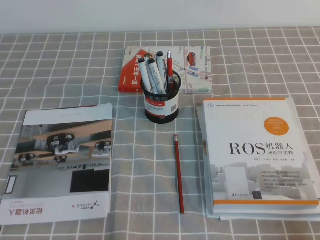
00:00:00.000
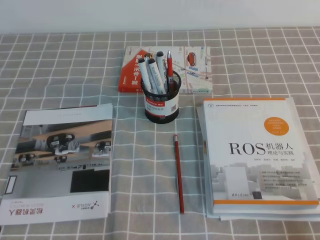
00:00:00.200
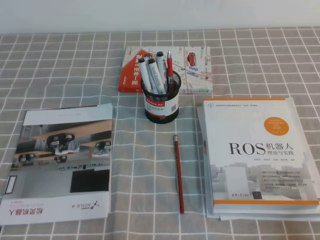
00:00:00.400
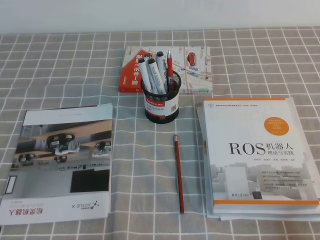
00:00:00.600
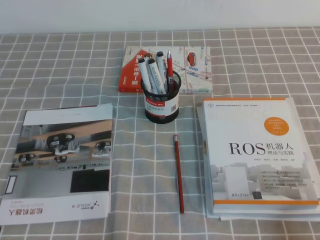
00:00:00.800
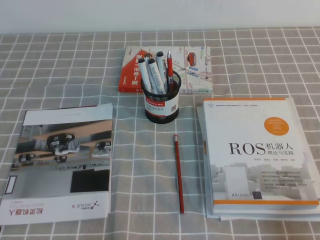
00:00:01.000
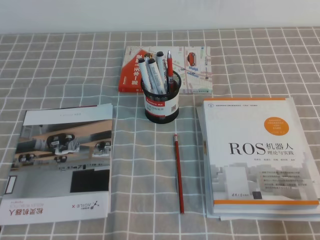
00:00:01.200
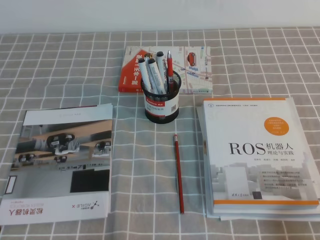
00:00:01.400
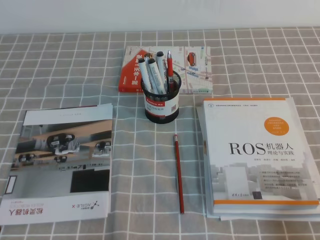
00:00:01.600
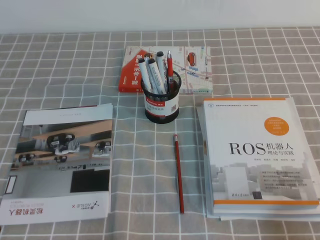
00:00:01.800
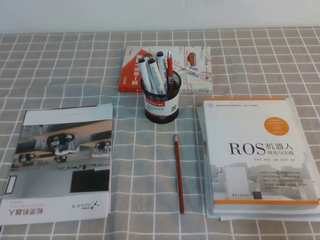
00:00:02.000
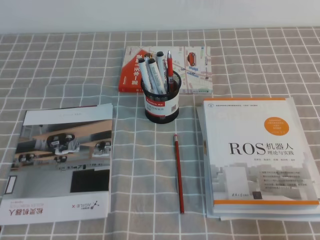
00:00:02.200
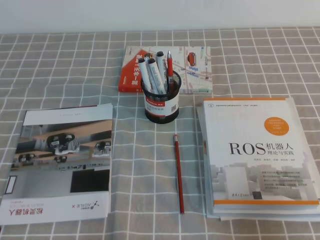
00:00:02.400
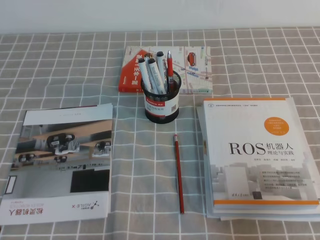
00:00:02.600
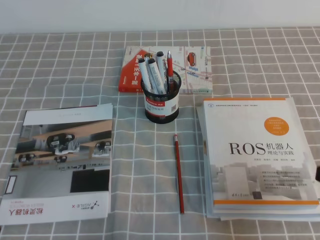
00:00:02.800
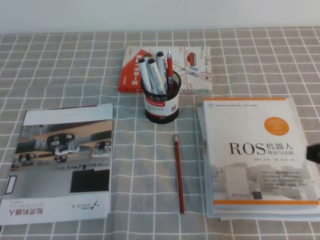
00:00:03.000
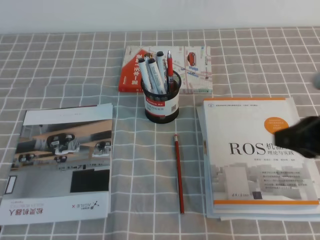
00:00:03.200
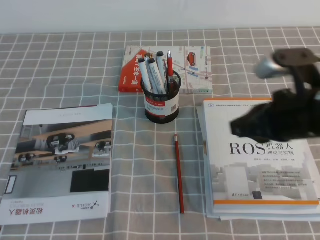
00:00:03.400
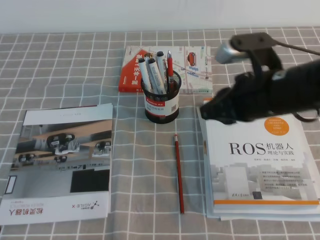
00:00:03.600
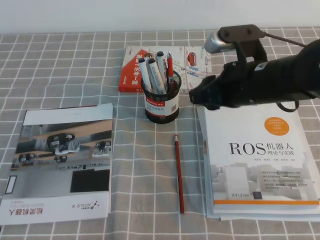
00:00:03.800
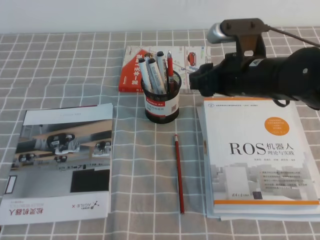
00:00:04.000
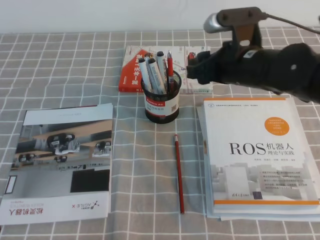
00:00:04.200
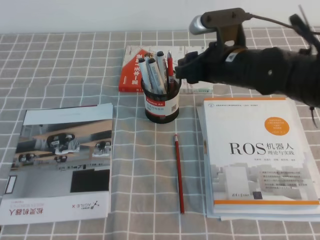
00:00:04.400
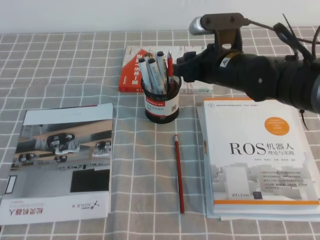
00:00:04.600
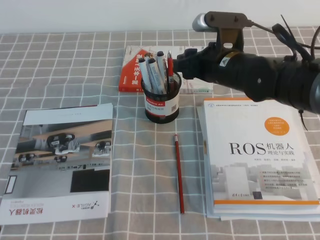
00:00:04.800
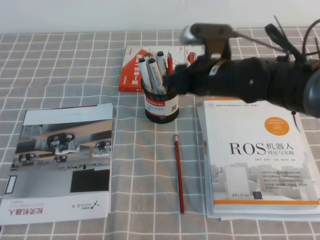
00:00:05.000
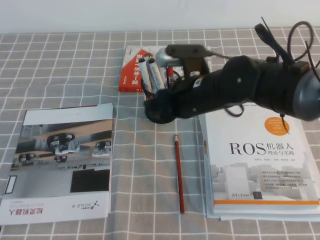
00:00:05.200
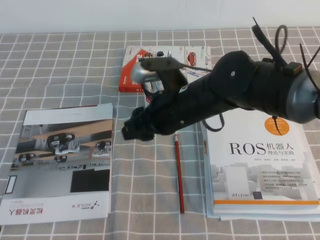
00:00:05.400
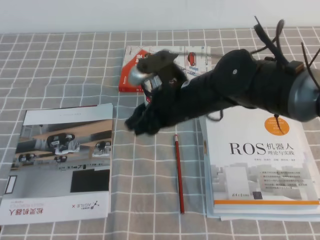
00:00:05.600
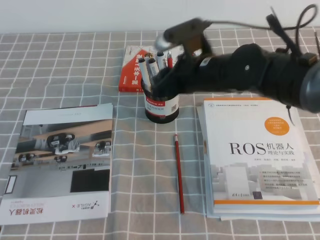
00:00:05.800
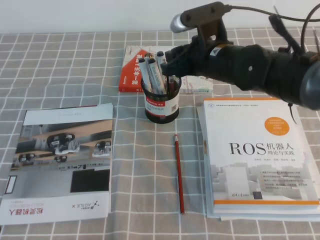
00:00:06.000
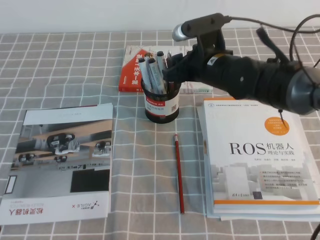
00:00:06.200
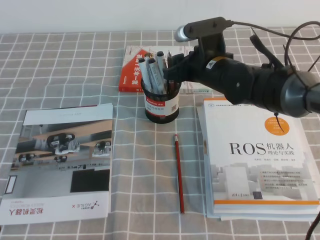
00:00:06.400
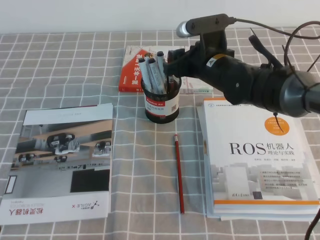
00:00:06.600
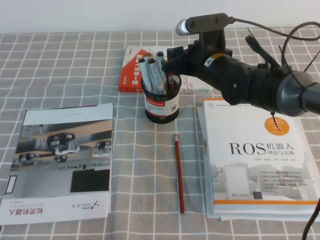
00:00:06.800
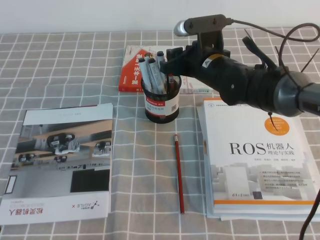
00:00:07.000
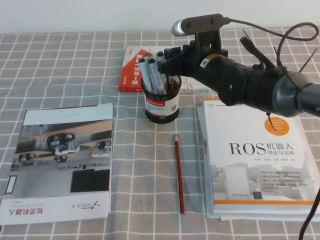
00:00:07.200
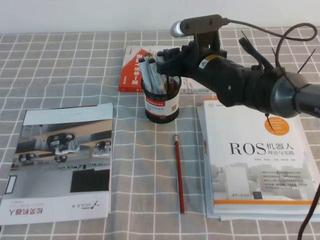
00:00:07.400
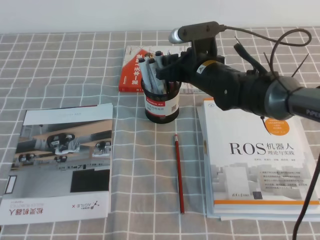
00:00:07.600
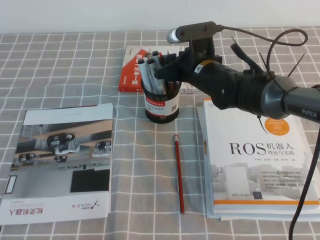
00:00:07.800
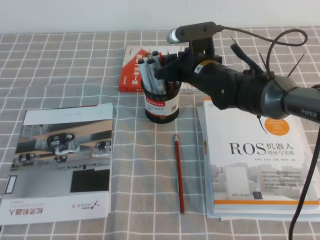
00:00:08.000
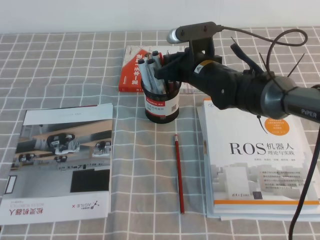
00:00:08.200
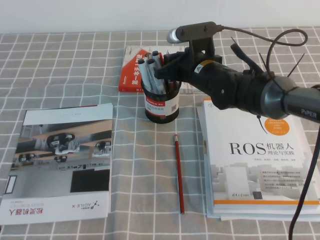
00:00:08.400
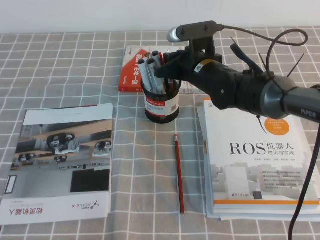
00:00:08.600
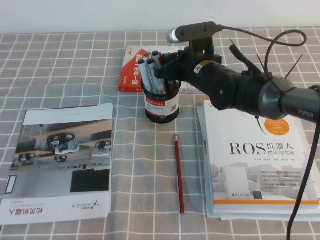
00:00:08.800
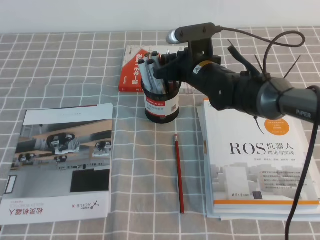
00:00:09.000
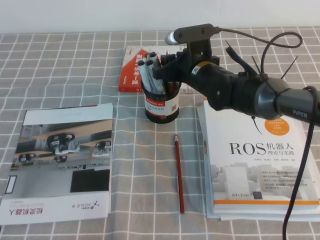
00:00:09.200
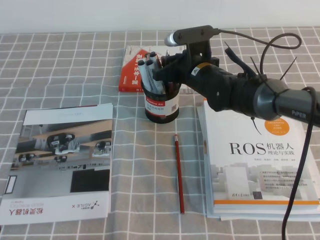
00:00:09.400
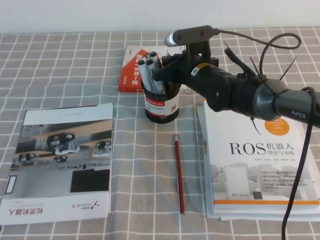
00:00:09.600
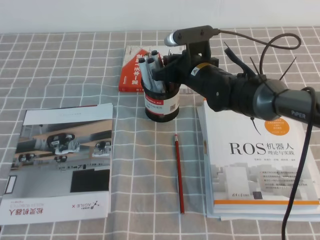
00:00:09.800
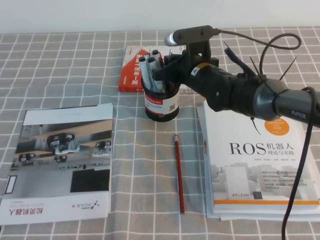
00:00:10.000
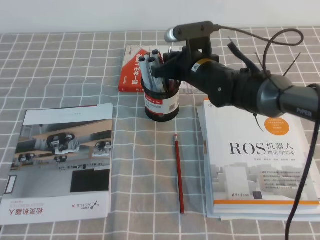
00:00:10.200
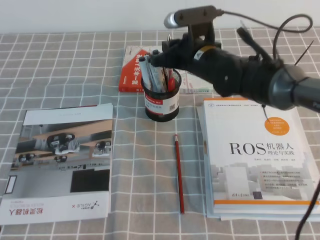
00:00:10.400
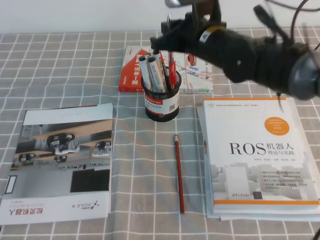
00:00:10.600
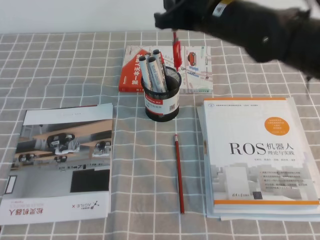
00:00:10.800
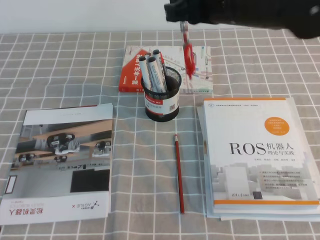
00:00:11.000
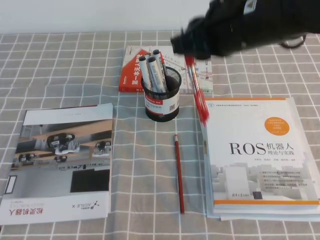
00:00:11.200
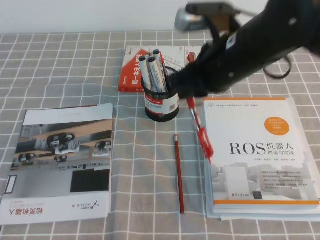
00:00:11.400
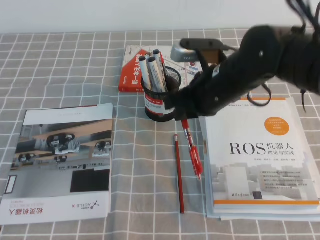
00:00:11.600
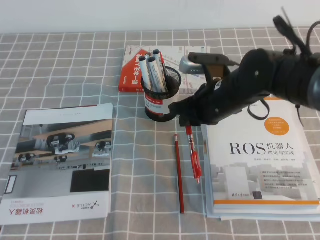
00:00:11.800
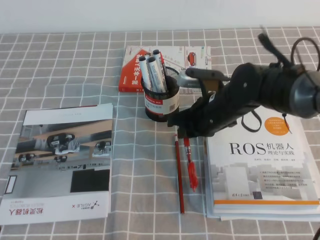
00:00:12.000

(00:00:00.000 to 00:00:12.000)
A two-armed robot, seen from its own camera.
00:00:01.600 - 00:00:03.000: The right gripper goes approximately 15 cm forward and upward.
00:00:03.000 - 00:00:04.400: The right gripper shifts about 25 cm forward and to the left, and opens.
00:00:06.000 - 00:00:07.600: The right gripper changes place by roughly 5 cm.
00:00:07.600 - 00:00:09.000: There are only small adjustments of the grippers.
00:00:09.000 - 00:00:10.400: The right gripper closes up.
00:00:10.400 - 00:00:12.000: The right gripper travels backward by some 5 cm, and travels upward and back again, approximately 15 cm each way.

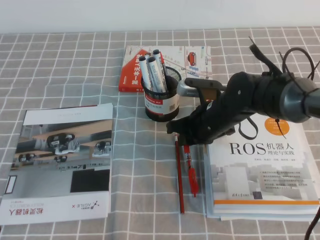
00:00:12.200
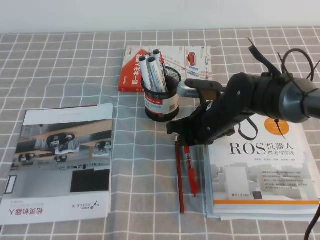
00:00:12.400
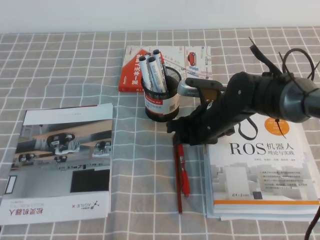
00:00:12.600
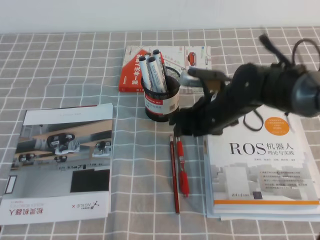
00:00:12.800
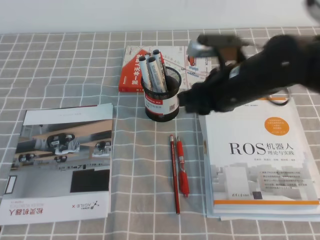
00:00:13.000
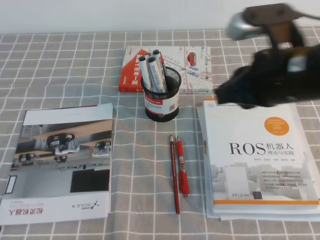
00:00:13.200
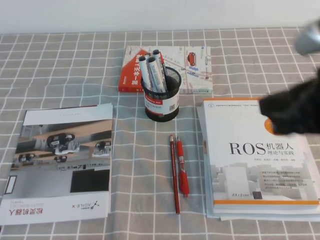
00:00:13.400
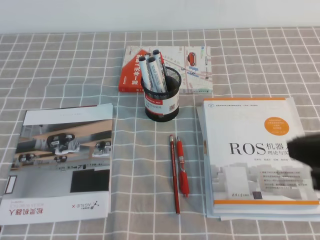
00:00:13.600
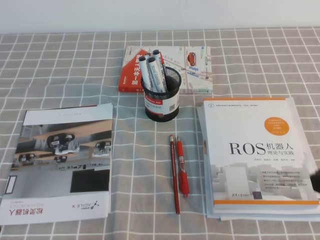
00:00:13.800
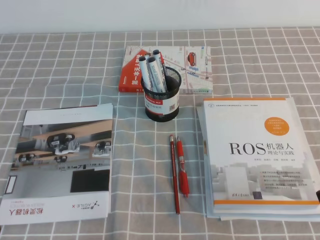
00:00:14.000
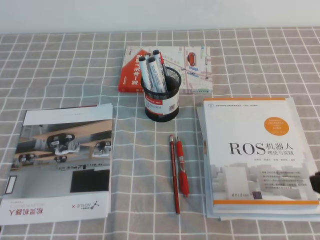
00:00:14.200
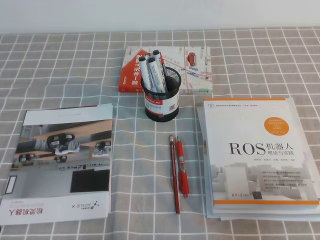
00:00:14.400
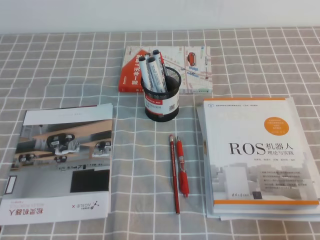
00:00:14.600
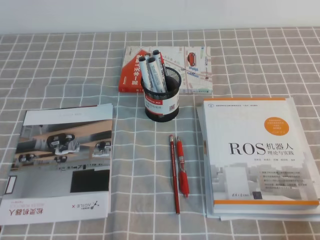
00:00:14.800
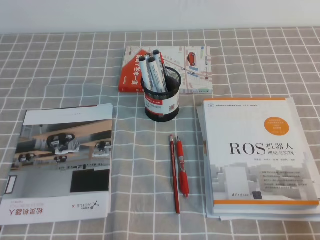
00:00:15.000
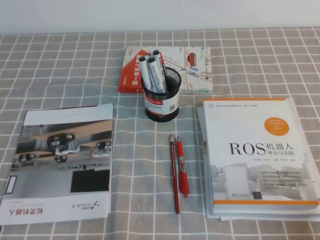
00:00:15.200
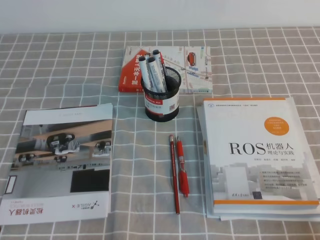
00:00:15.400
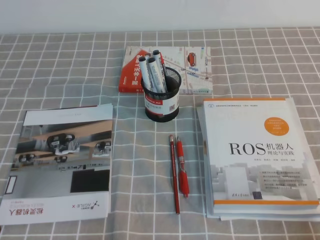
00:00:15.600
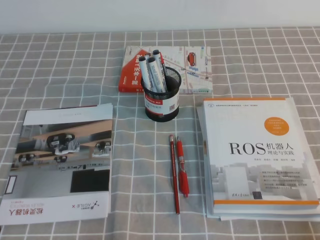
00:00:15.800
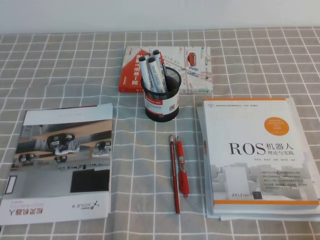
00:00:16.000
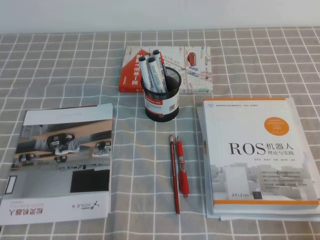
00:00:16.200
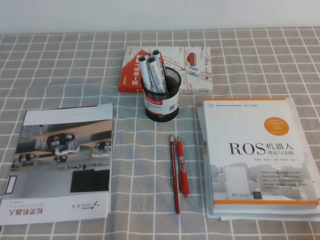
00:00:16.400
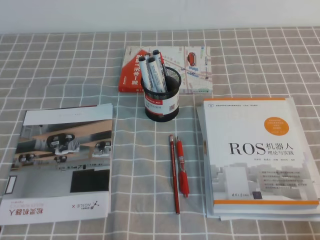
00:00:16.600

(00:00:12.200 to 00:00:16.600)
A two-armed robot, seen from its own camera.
Step, 00:00:12.200 - 00:00:16.600: Pick up the pen from the pen holder.
00:00:12.200 - 00:00:13.600: The right gripper travels backward, upward and to the right by about 30 cm, and opens and closes again.
00:00:13.600 - 00:00:15.200: The right gripper travels downward, to the right and backward by some 20 cm.
